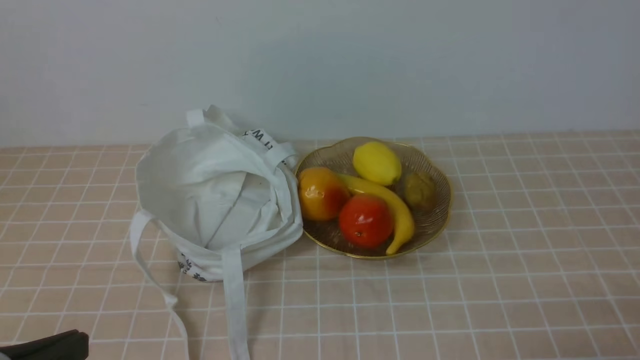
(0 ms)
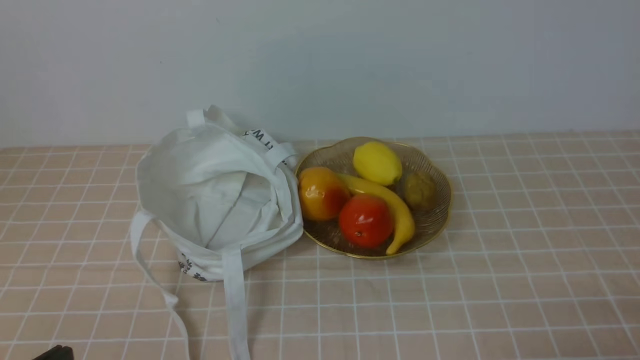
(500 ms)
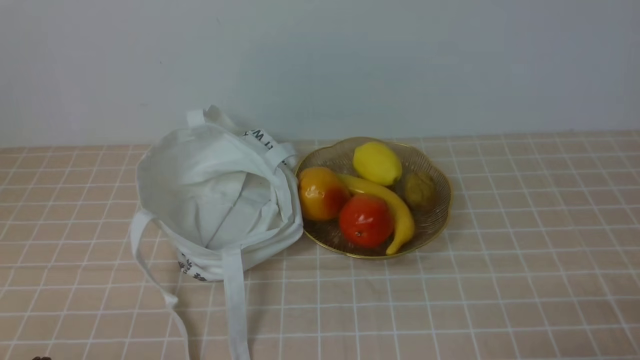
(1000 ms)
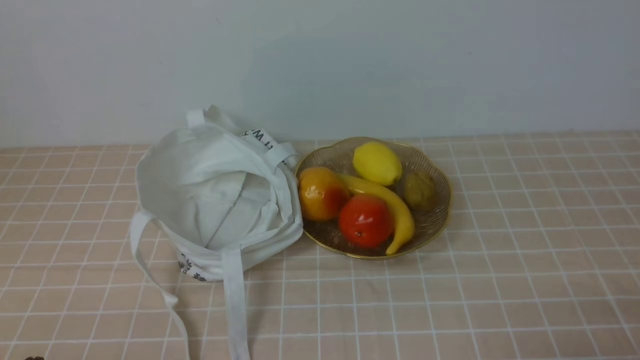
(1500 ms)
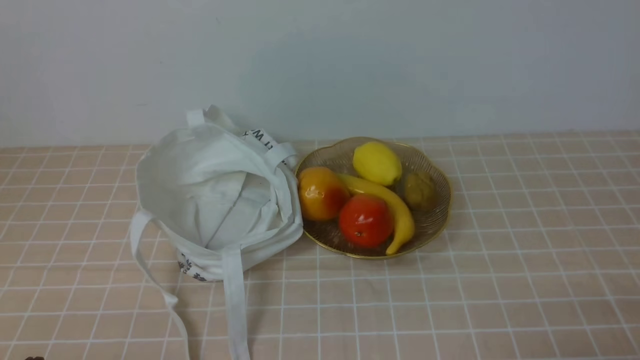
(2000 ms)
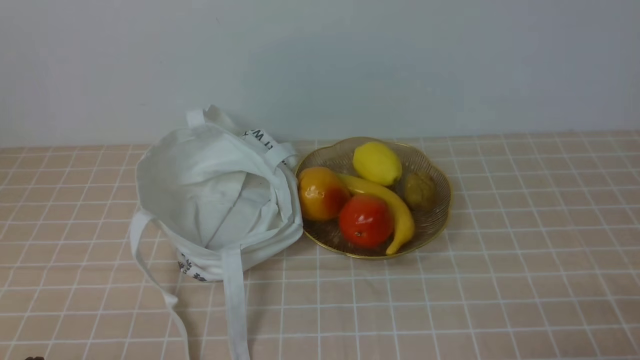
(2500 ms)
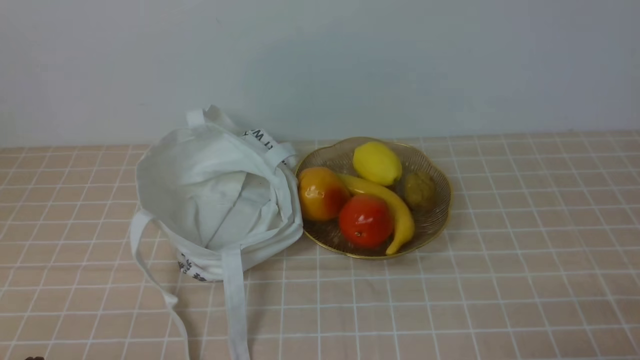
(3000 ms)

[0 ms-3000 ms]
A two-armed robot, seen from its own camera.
0 ms to 1500 ms: The left gripper shifts some 10 cm downward.
1500 ms to 3000 ms: Both grippers stay put.
